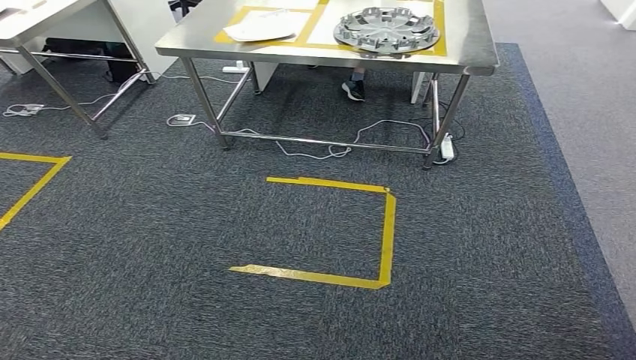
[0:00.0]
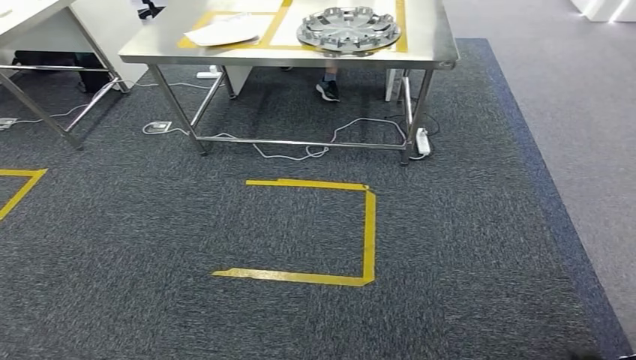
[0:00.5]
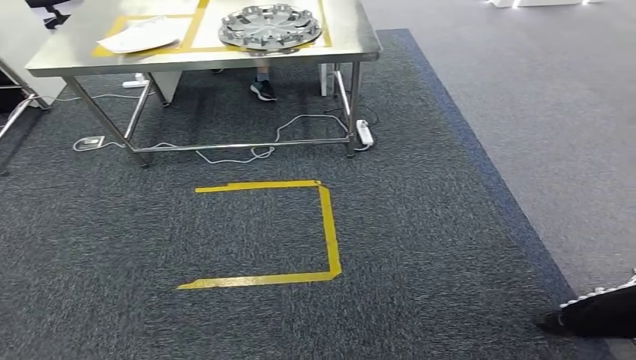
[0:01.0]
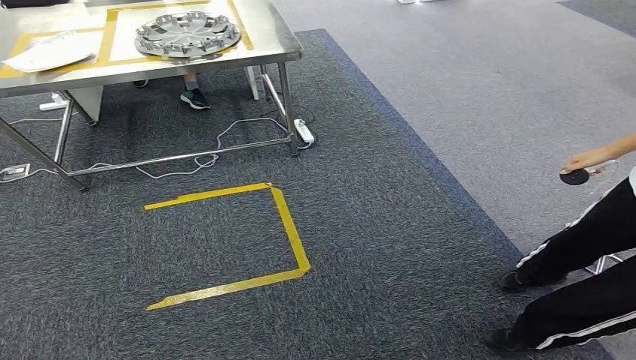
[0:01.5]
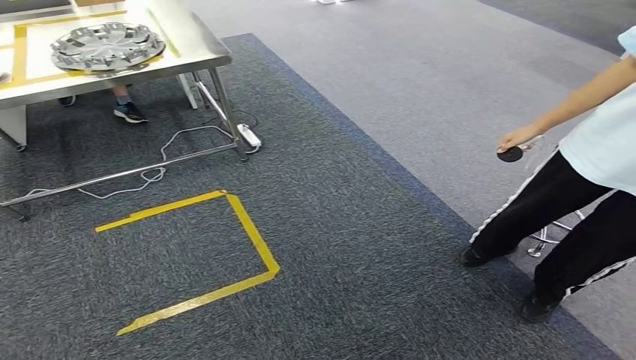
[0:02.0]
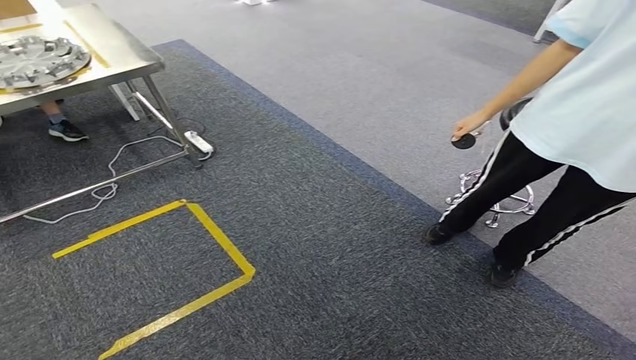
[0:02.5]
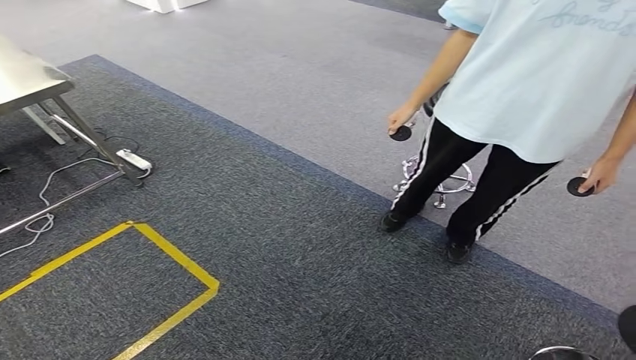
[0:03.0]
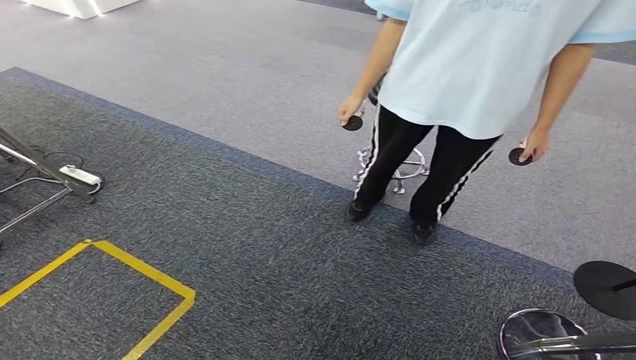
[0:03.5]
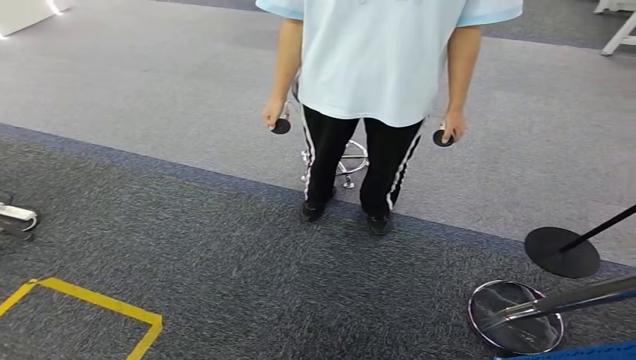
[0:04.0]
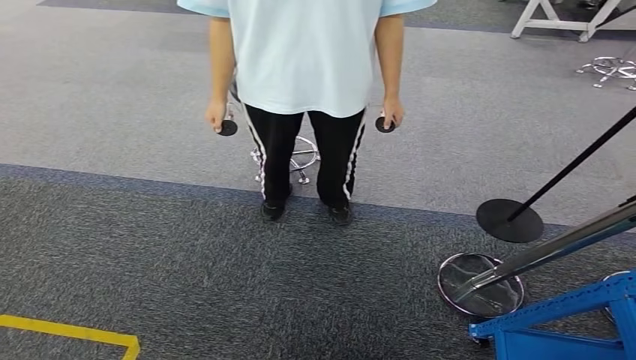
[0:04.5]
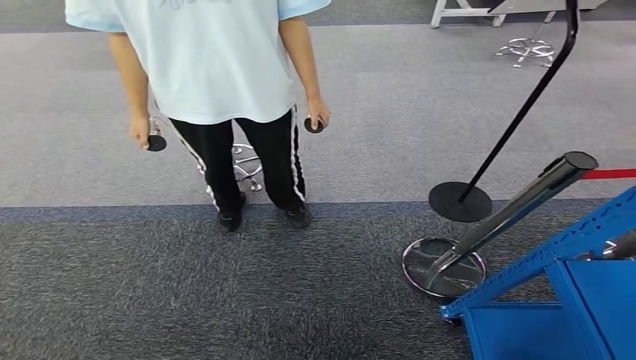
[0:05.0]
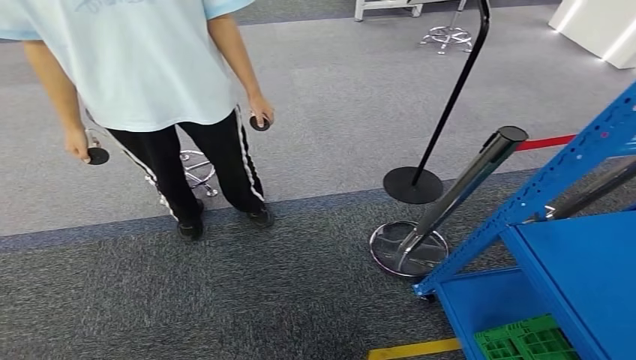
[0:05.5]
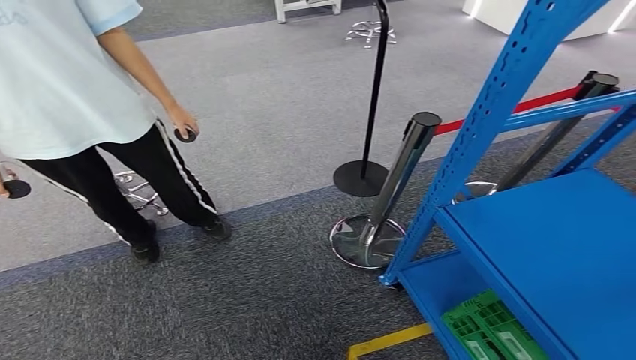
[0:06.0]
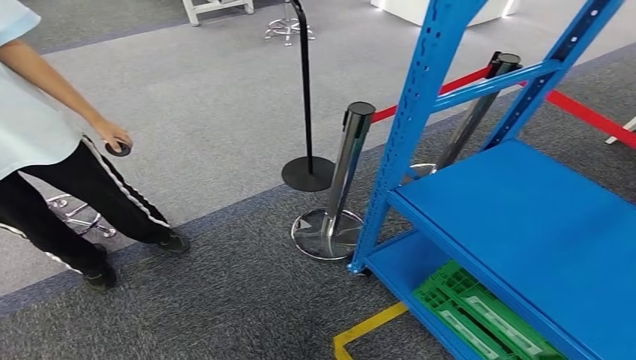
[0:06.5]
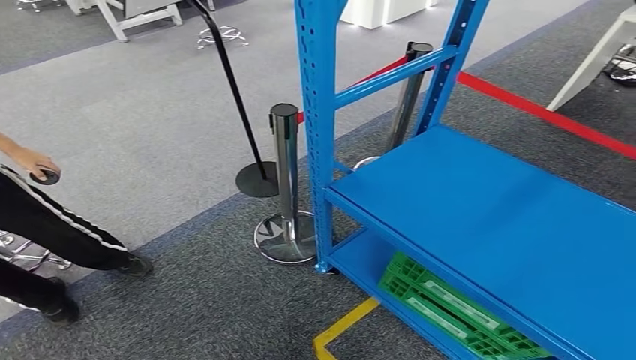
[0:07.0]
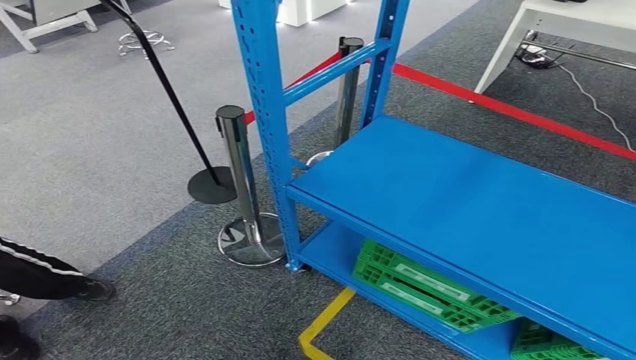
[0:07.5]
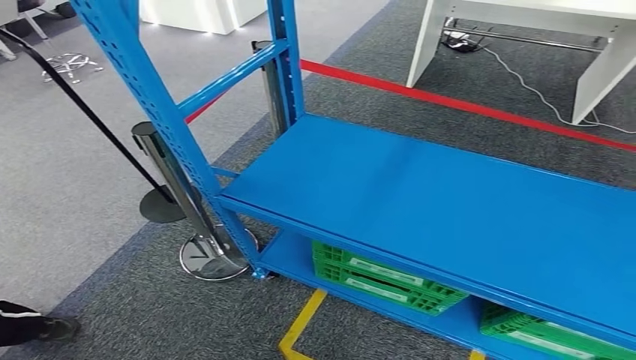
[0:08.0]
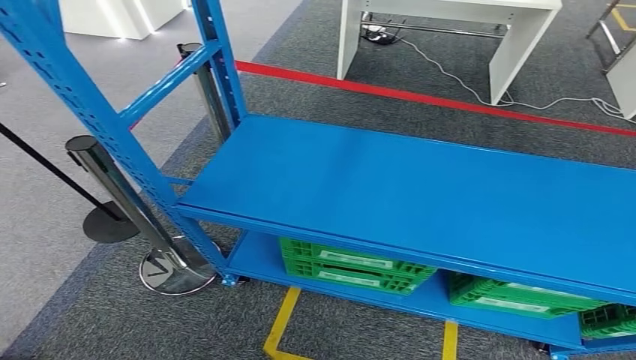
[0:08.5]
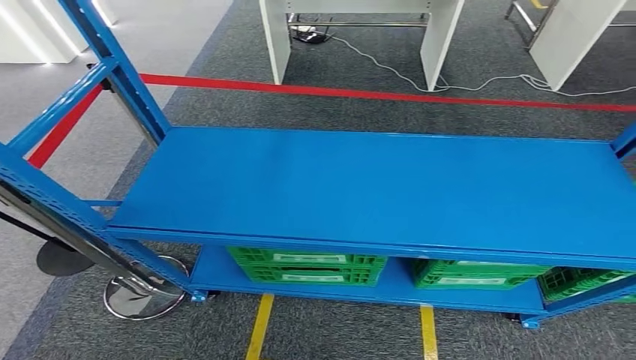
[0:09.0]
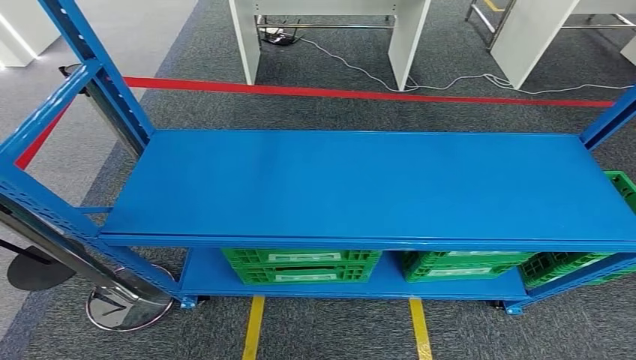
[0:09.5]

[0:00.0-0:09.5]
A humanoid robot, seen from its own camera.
Step, 0:00.0 to 0:09.5: Return to the initial position at the workbench.
